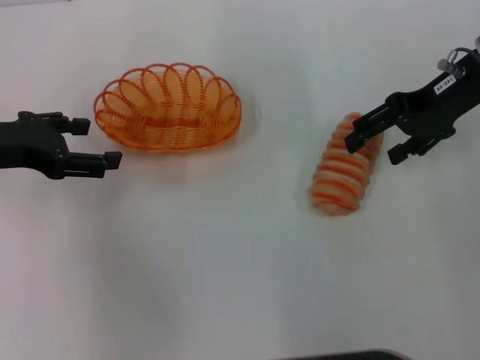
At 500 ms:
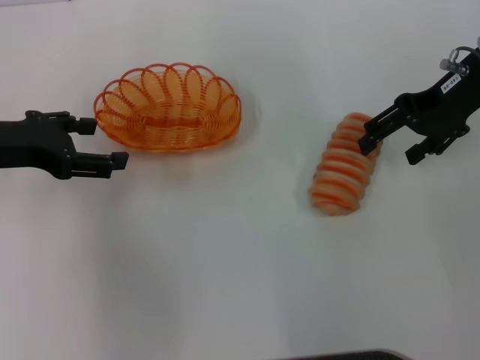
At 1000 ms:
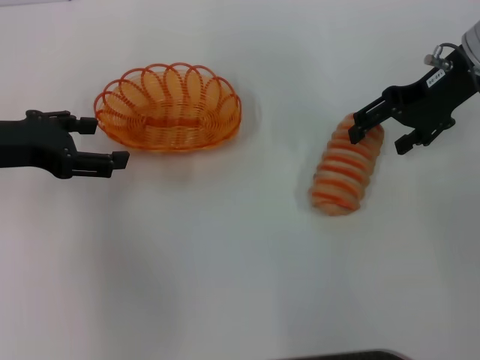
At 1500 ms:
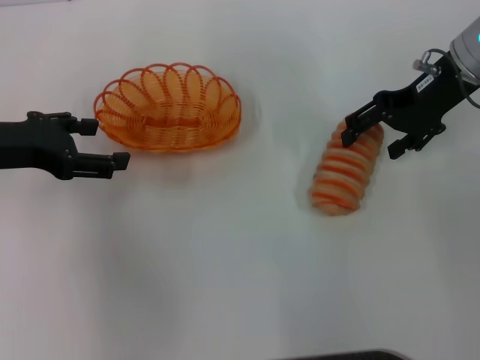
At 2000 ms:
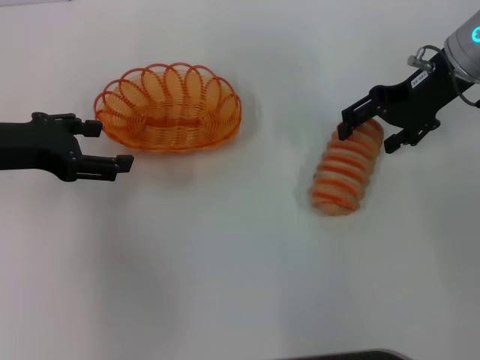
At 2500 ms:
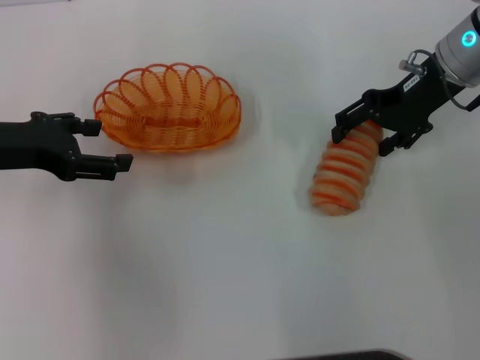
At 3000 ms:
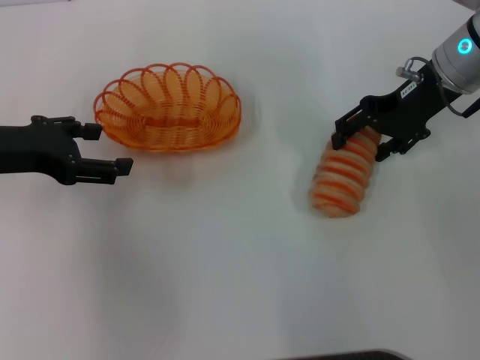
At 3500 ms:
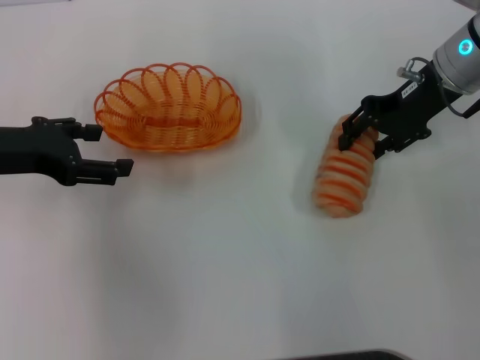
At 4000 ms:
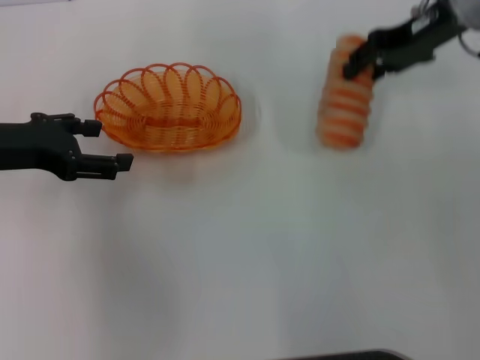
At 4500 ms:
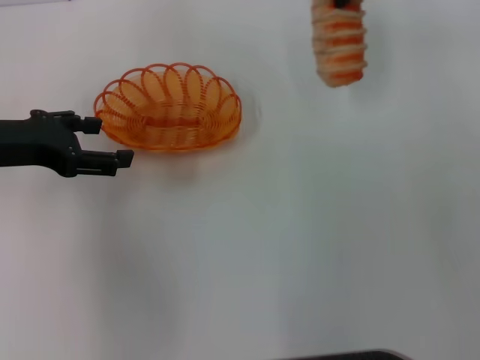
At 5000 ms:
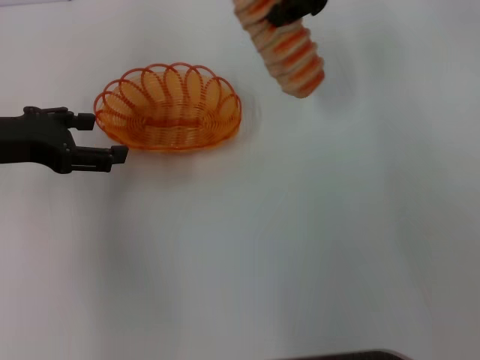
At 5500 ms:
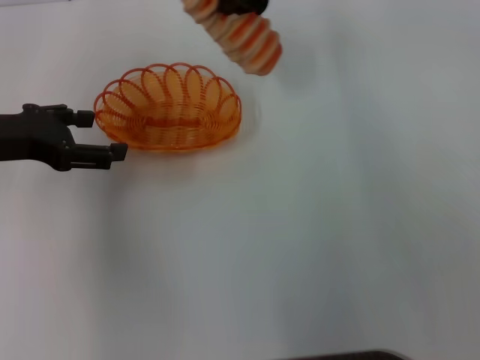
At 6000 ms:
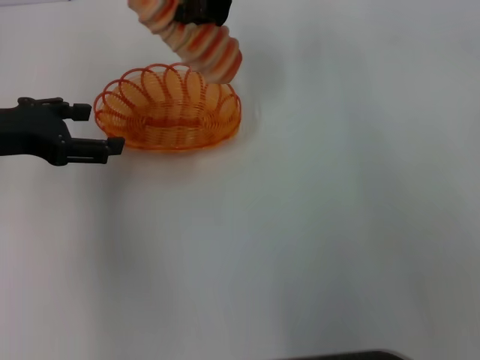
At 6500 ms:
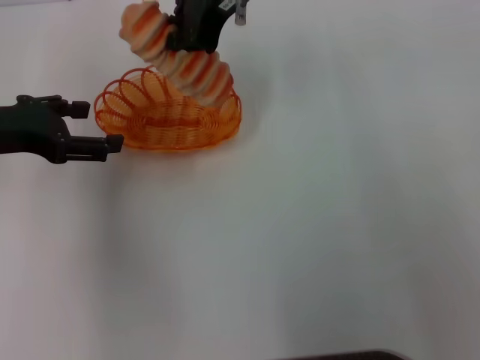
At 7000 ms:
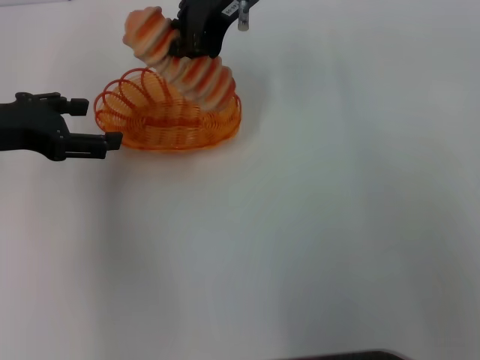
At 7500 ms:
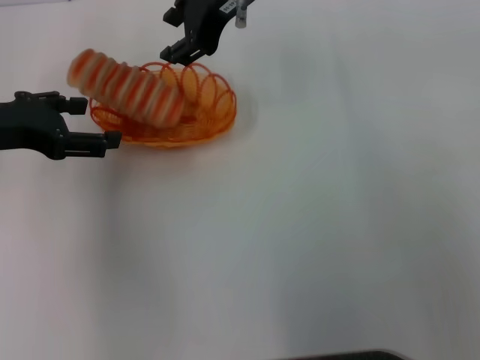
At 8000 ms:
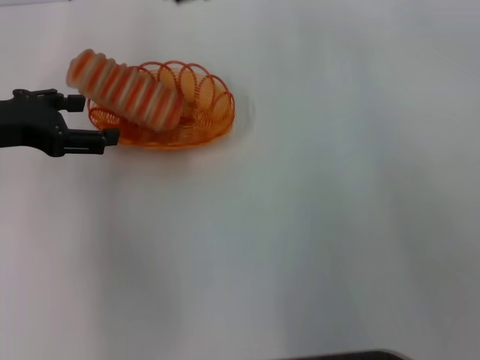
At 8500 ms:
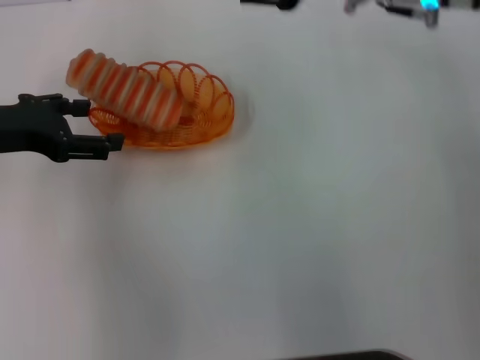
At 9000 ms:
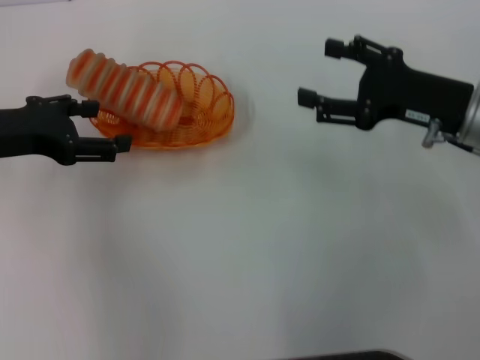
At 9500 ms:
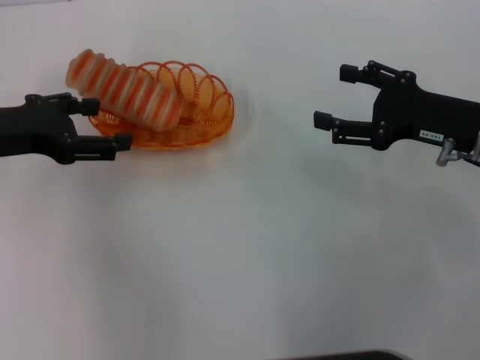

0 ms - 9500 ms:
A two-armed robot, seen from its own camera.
Step, 0 ms - 3500 ms: Pick up the long bread with the right gripper.
Step, 4000 ms - 7000 ms: Place the long bread into the basket with the right gripper.
0 ms - 2000 ms: The grippers make only small movements.
2000 ms - 4000 ms: The right gripper closes.
4000 ms - 5500 ms: The right gripper travels to the left and upward by about 15 cm, and closes its fingers.
5500 ms - 7500 ms: The grippers move only a little.
7500 ms - 9500 ms: The right gripper moves to the right, downward and backward, approximately 30 cm, and opens its fingers.

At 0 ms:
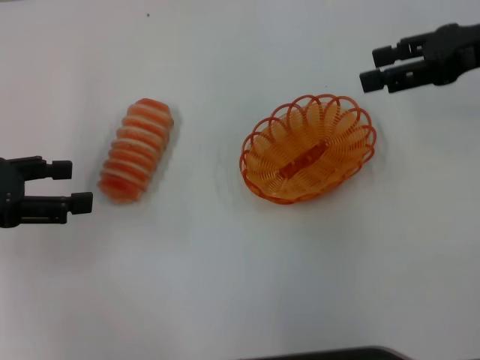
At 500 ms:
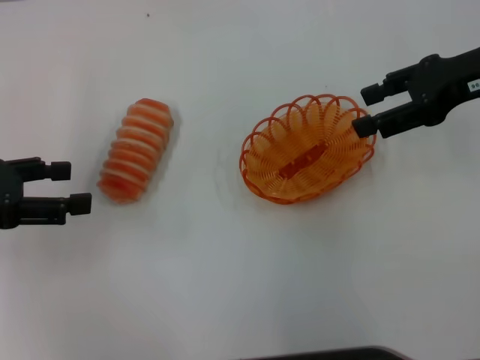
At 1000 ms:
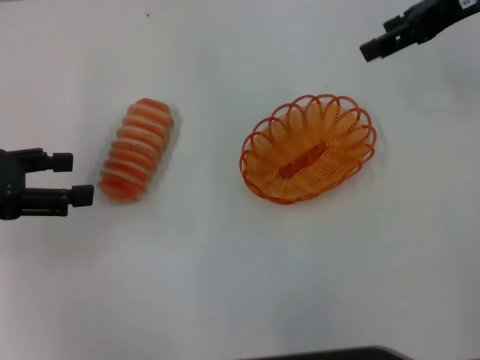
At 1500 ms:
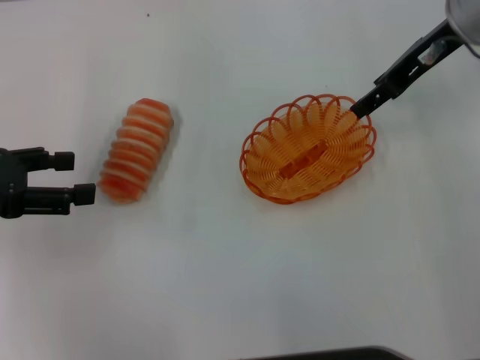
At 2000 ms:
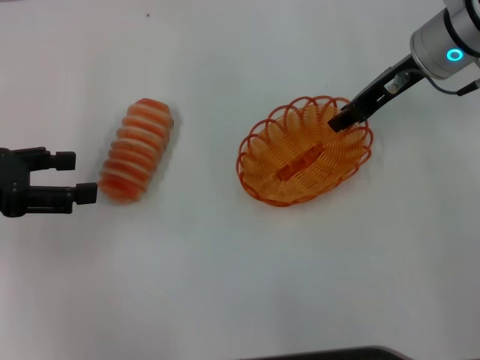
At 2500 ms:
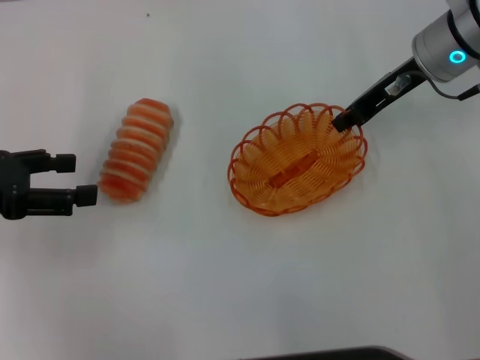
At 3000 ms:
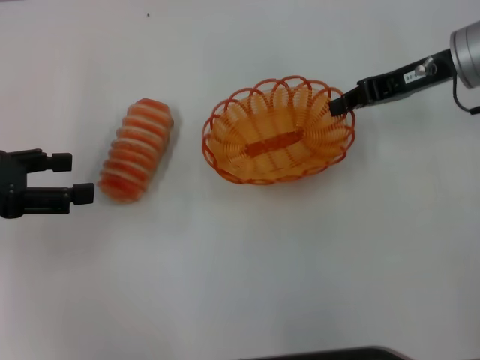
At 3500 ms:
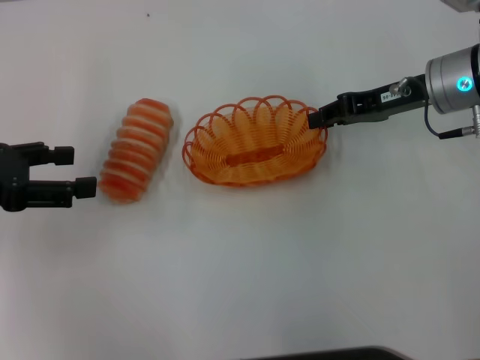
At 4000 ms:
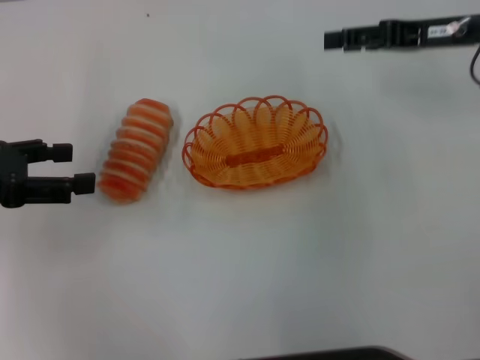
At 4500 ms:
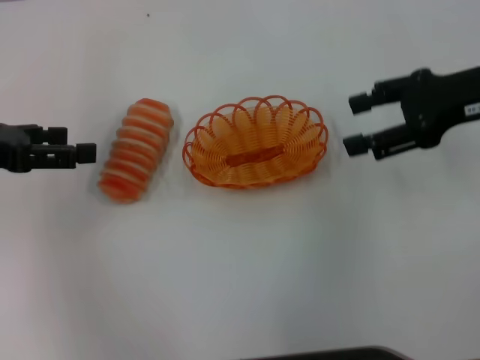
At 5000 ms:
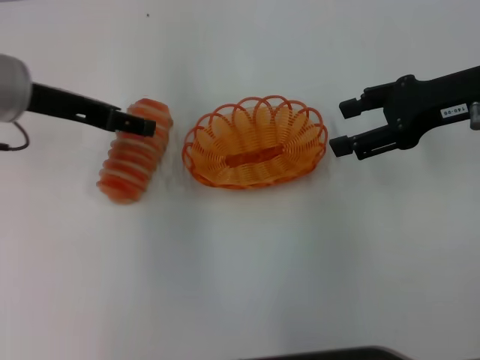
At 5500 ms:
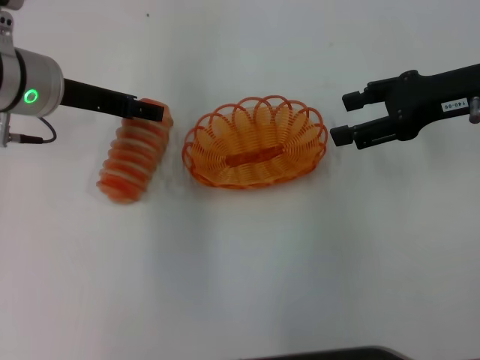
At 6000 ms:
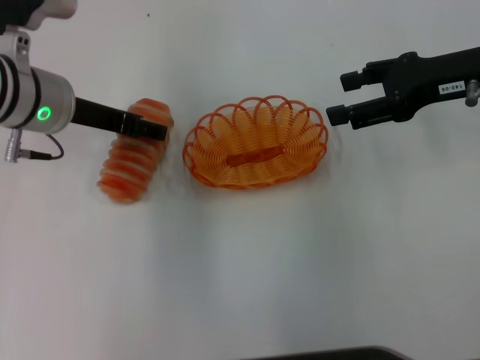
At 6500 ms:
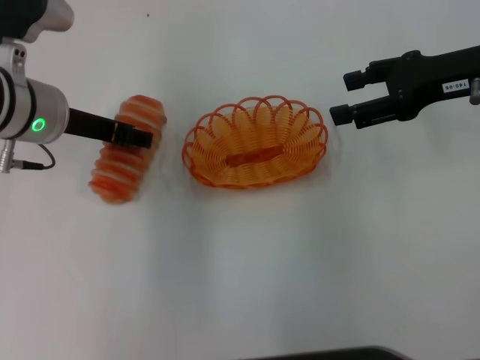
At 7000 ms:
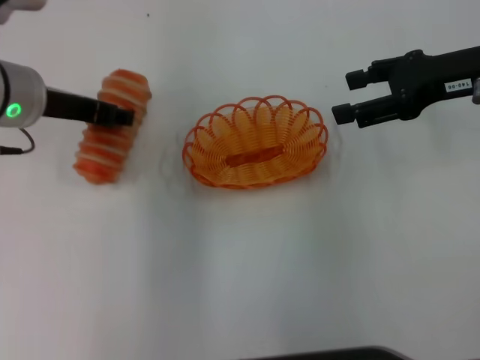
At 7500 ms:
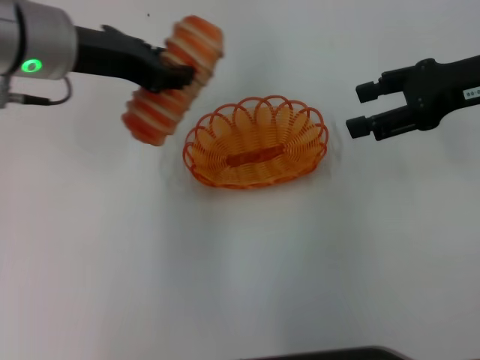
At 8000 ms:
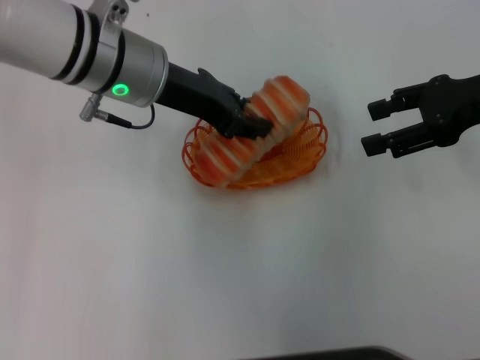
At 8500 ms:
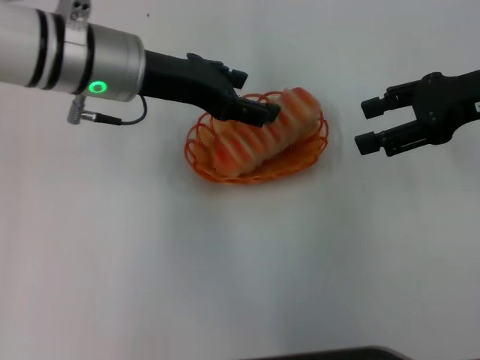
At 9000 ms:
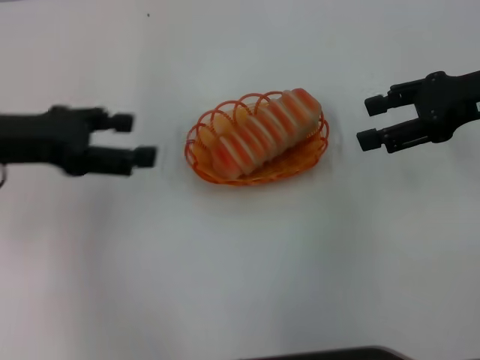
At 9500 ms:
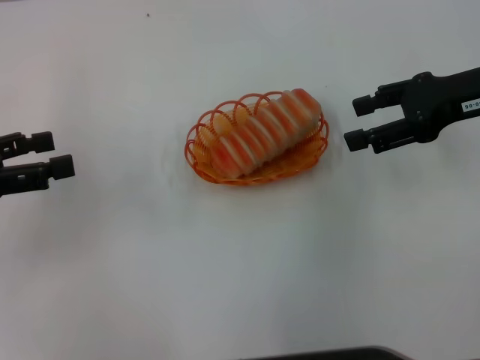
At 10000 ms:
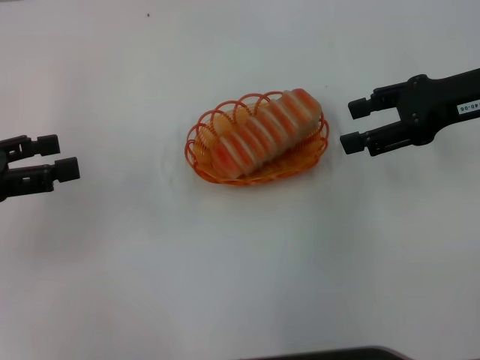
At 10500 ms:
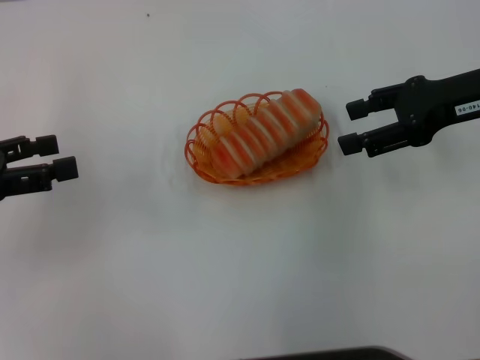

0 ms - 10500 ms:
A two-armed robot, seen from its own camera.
Step, 0 ms - 2500 ms: Pick up the basket with the right gripper.
Step, 3000 ms - 3500 ms: Place the basket in the center of view with the right gripper.
Step, 4000 ms - 6500 ms: Pick up the long bread with the left gripper.
Step, 7500 ms - 8000 ms: Place the long bread into the basket with the left gripper.
0 ms - 2000 ms: The right gripper travels to the left, forward and downward by about 10 cm.
2000 ms - 4000 ms: The right gripper shifts some 5 cm to the right, and closes, then reopens.
4000 ms - 6500 ms: The right gripper opens, while the left gripper moves to the right and forward, roughly 15 cm, and closes up.
6500 ms - 8500 ms: The left gripper travels to the right by some 5 cm, and closes and opens again.
8500 ms - 10500 ms: The left gripper is displaced to the left and backward by roughly 25 cm.

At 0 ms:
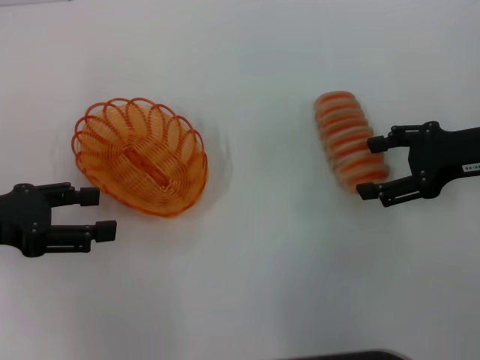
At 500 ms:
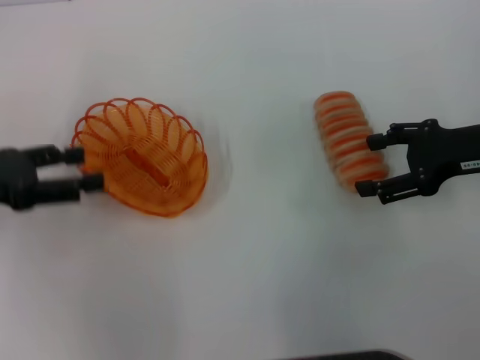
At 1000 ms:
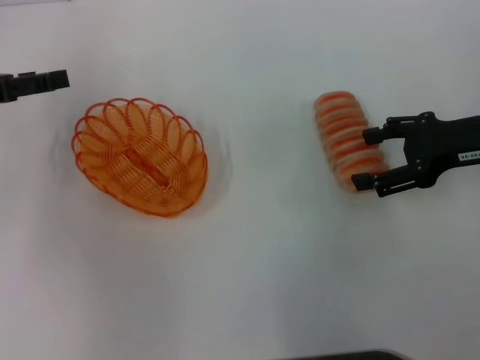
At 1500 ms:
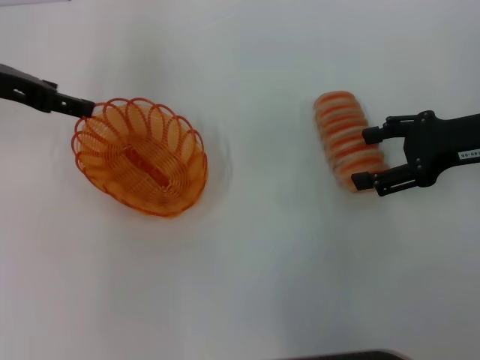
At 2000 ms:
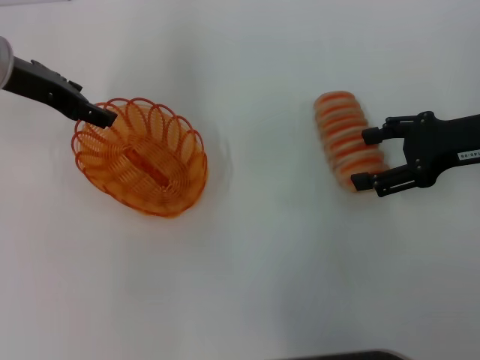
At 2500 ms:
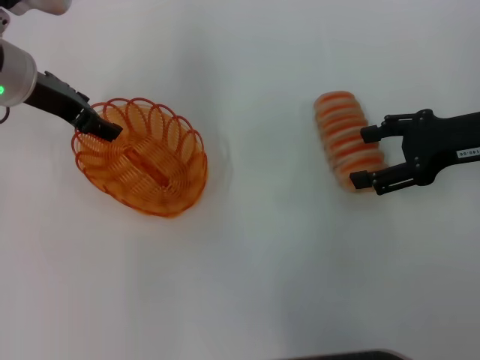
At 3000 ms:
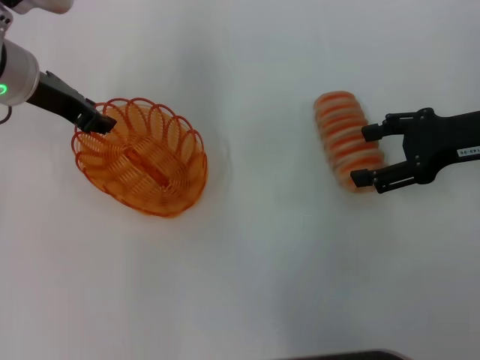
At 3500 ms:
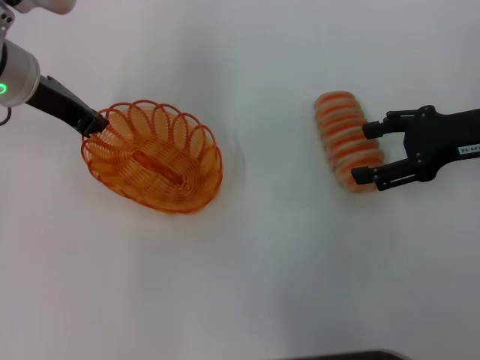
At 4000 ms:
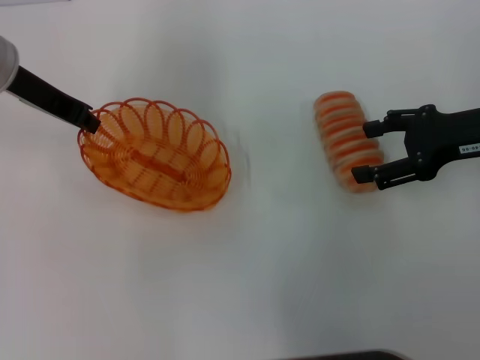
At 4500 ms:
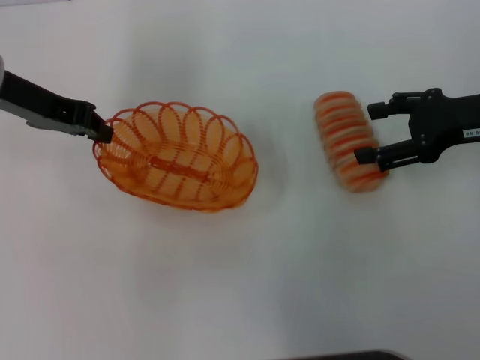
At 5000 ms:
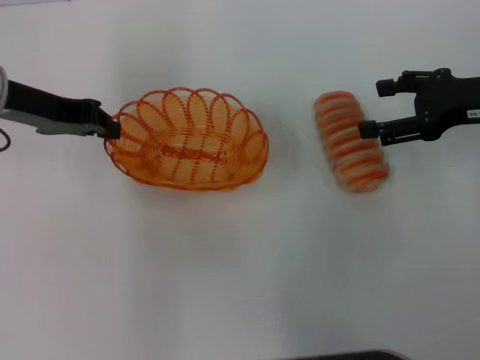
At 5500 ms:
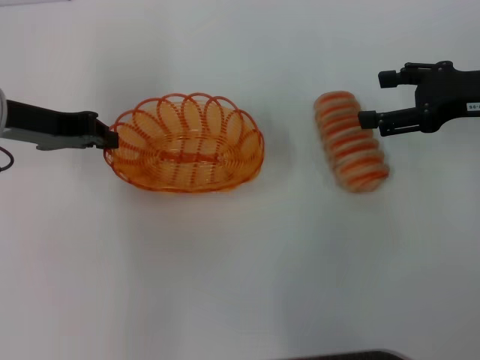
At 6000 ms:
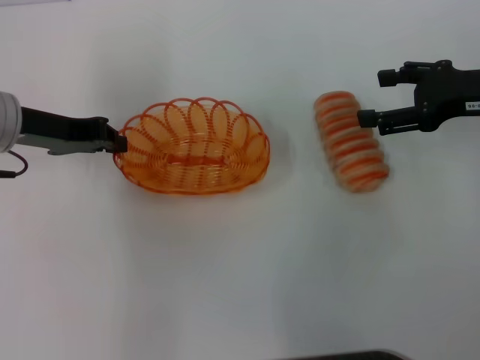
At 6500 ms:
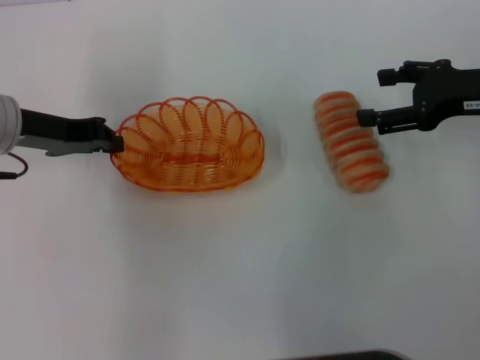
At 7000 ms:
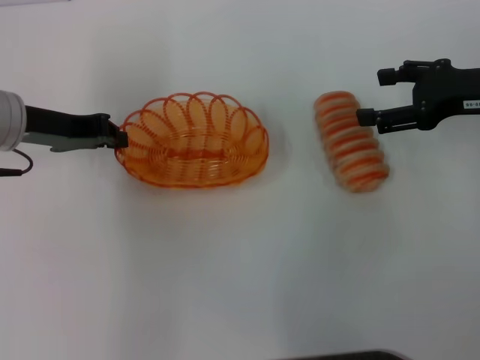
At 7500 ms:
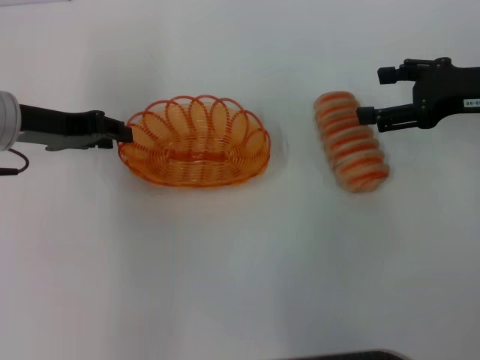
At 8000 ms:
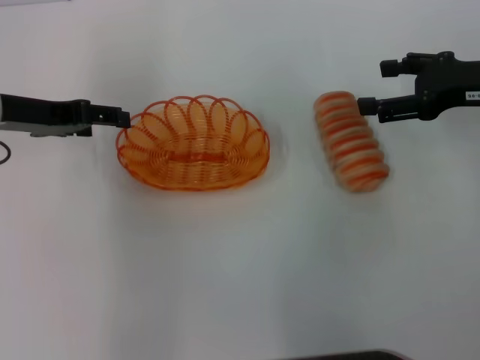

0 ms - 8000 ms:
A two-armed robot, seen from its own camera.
Step, 0 ms - 4000 ms: Pick up the basket with the left gripper.
Step, 4500 ms - 7500 ms: Place the basket in the center of view with the left gripper.
0 ms - 2000 ms: The left gripper travels forward and to the right by some 15 cm.
2000 ms - 4000 ms: The left gripper closes up.
4000 ms - 6000 ms: The left gripper changes place by roughly 5 cm.
6000 ms - 8000 ms: The left gripper opens.
